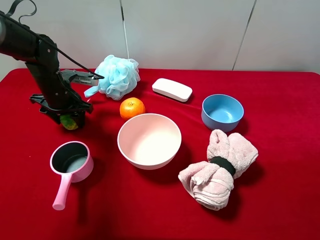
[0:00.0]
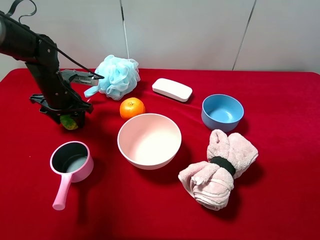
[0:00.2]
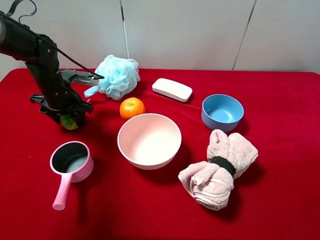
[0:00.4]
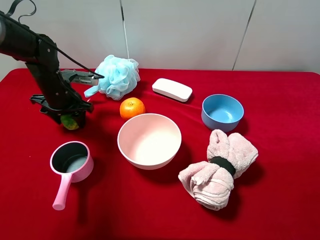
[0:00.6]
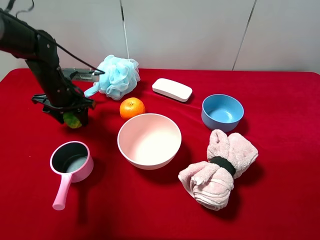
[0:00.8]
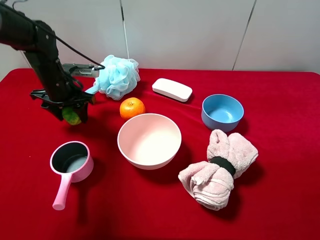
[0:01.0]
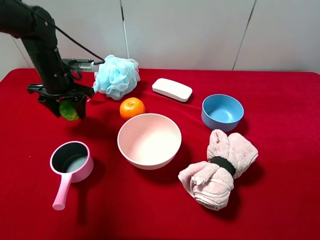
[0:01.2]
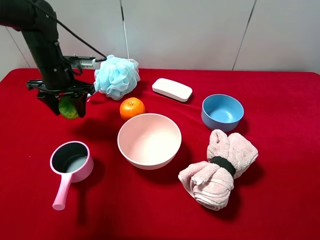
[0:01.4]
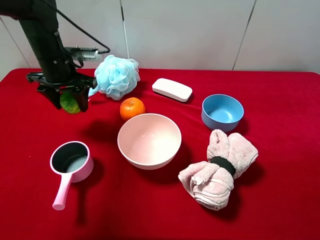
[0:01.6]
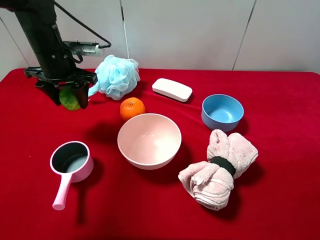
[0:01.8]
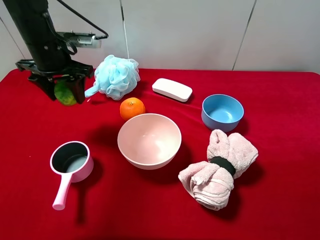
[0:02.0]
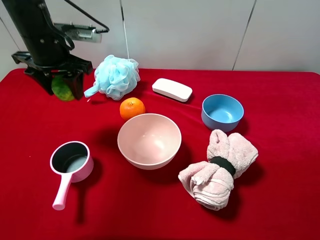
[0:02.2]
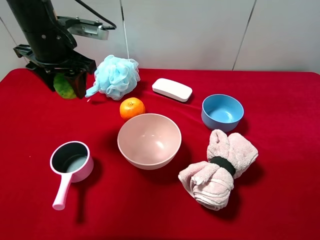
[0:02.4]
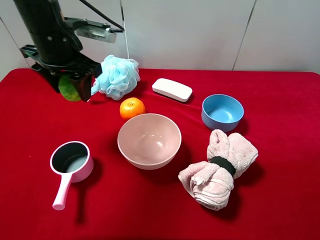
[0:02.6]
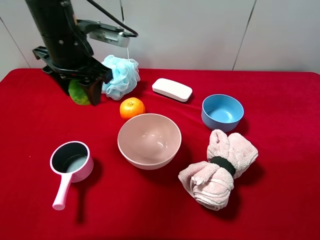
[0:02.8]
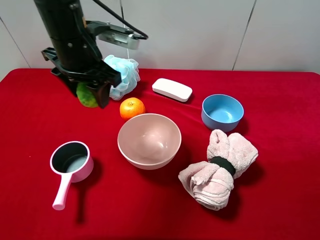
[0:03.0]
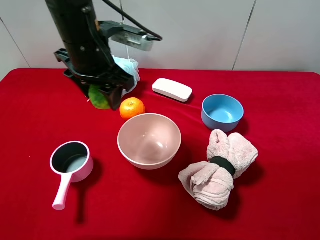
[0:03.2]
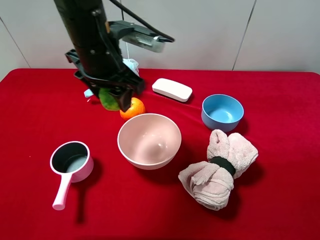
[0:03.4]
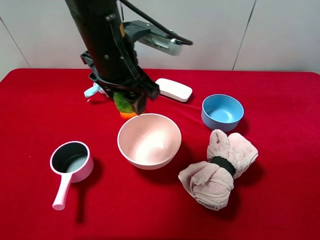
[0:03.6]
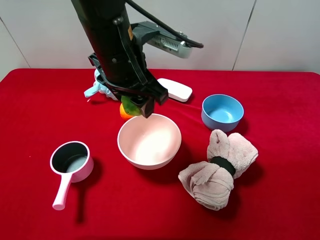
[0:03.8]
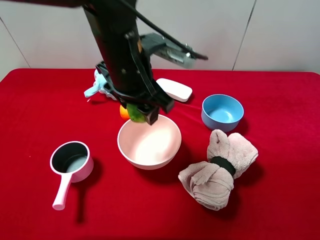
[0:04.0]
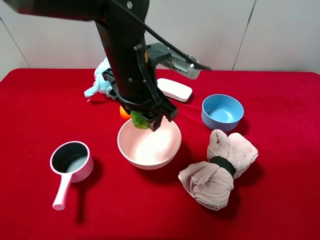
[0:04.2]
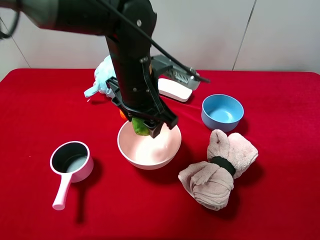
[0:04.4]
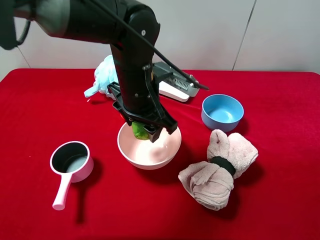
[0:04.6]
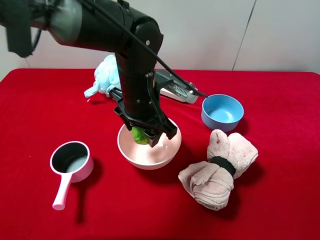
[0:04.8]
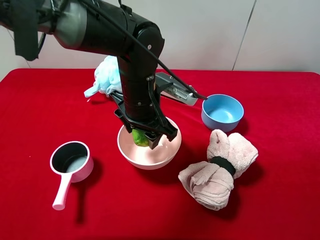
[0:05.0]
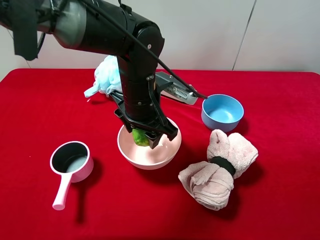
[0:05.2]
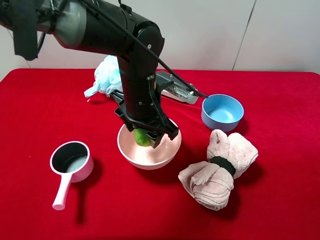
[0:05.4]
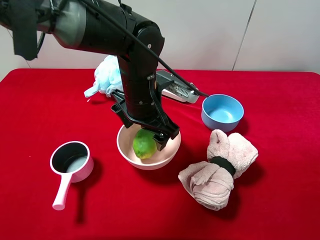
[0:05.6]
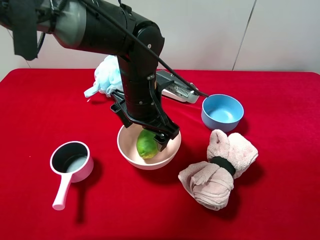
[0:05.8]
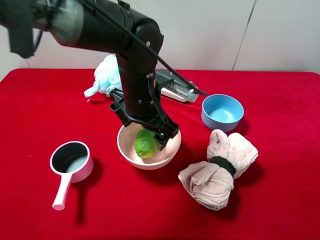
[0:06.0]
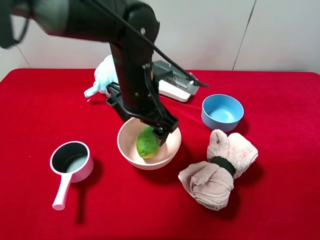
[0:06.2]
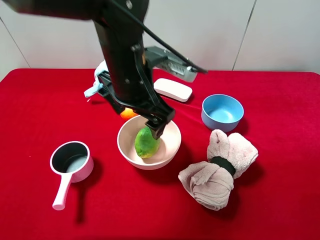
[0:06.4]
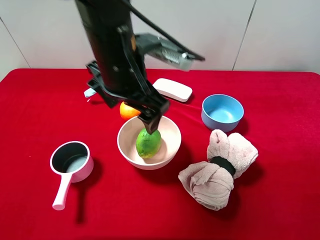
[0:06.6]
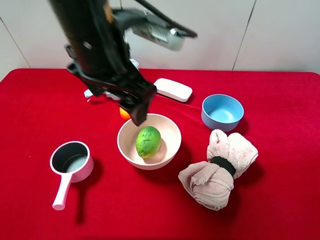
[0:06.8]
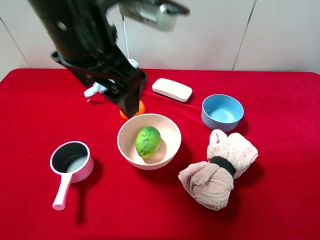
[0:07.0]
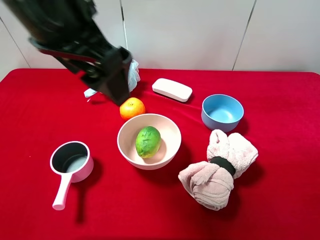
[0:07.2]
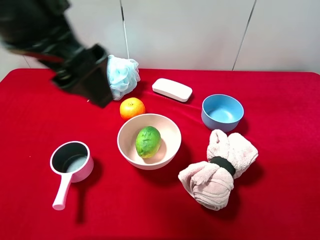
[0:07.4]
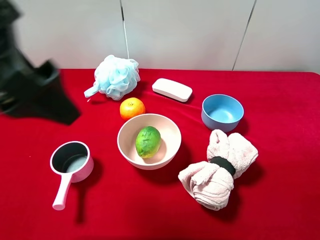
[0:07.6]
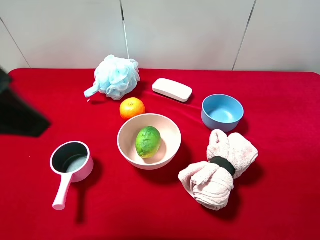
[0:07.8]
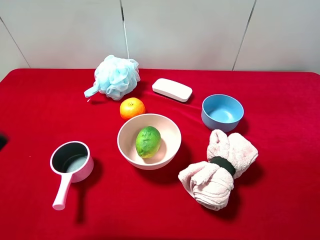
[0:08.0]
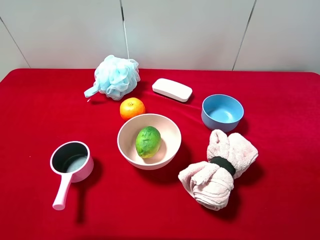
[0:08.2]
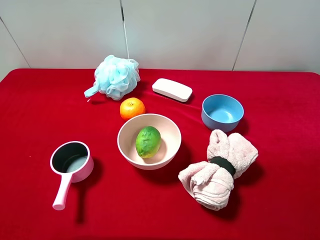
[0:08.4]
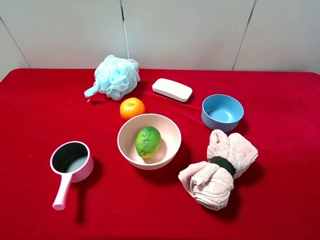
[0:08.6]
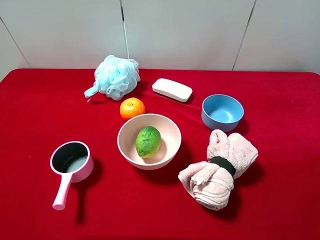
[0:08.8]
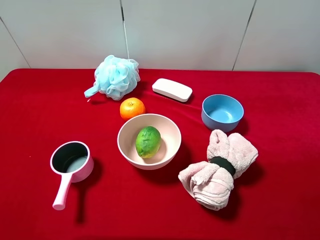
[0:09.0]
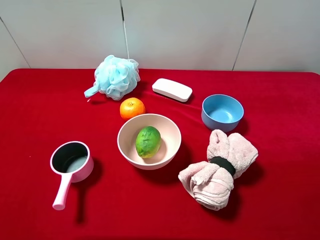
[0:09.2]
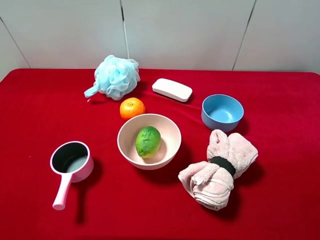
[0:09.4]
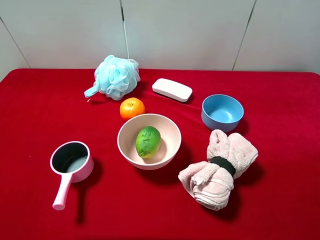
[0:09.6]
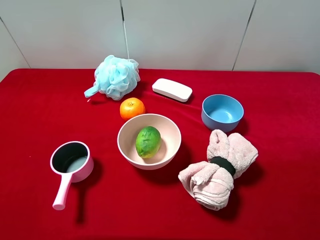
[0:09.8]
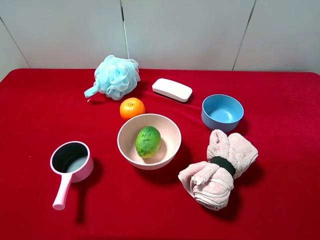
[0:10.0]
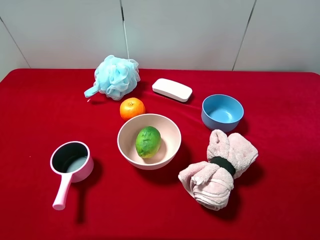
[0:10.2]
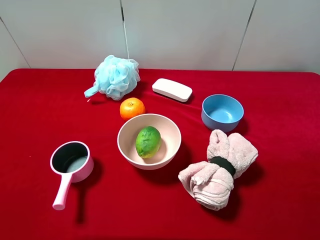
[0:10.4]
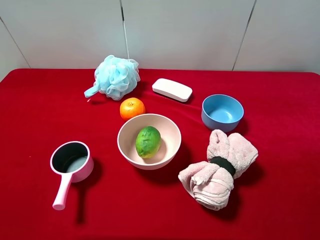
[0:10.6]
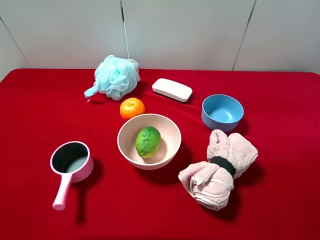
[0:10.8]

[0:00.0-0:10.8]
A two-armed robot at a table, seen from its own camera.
Task of the whole recording: pick up an item with a gripper and place it in a random container on the desktop.
0:00.0 to 0:01.6: The left gripper shifts some 10 cm upward.
0:01.6 to 0:03.0: The left gripper travels to the right, upward and backward by approximately 15 cm.
0:03.0 to 0:04.6: The left gripper goes approximately 10 cm to the right and downward.
0:04.6 to 0:06.2: The left gripper opens its fingers.
0:06.2 to 0:07.8: The left gripper shifts some 30 cm upward, to the left and backward.
0:07.8 to 0:09.2: The left gripper is displaced to the left, backward and downward by roughly 20 cm.

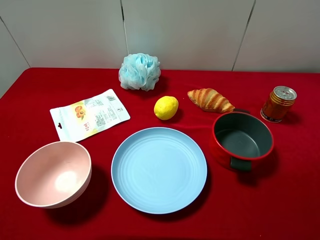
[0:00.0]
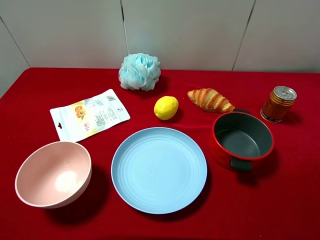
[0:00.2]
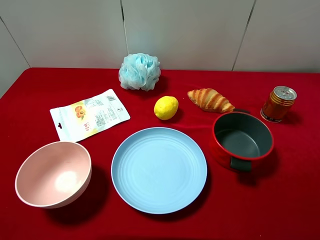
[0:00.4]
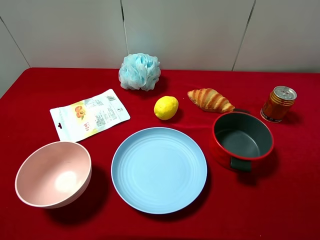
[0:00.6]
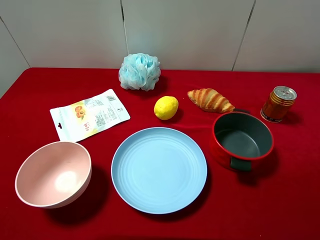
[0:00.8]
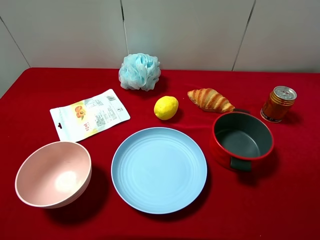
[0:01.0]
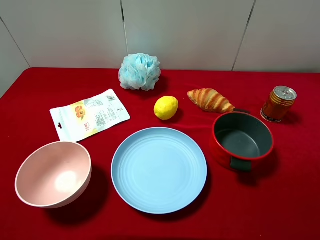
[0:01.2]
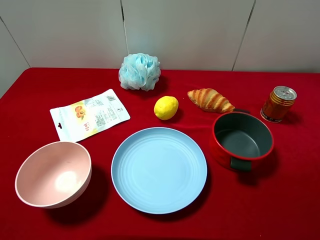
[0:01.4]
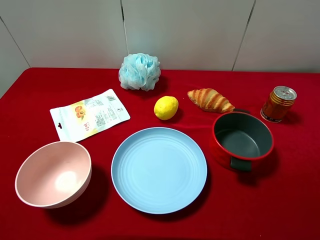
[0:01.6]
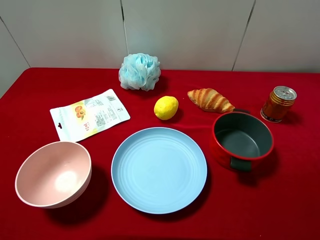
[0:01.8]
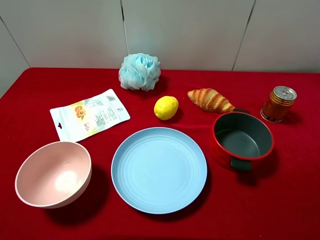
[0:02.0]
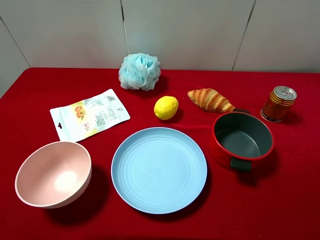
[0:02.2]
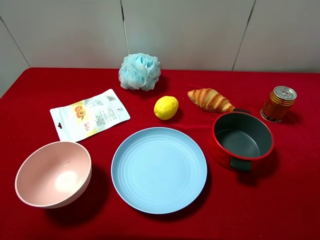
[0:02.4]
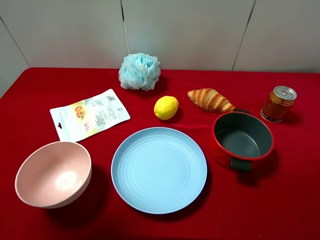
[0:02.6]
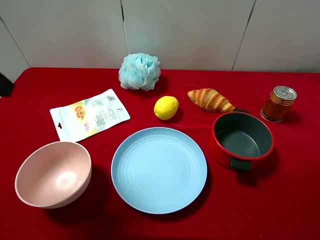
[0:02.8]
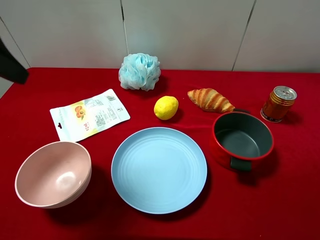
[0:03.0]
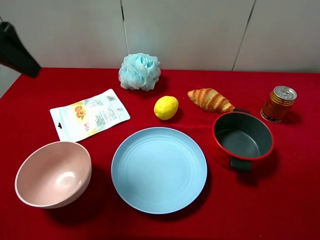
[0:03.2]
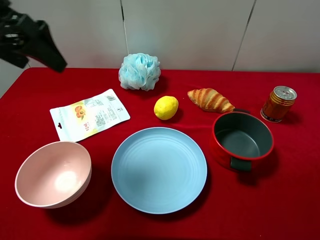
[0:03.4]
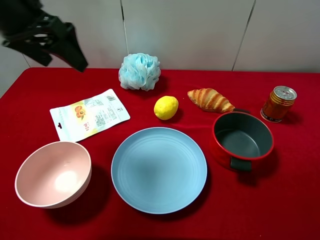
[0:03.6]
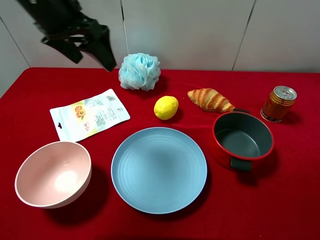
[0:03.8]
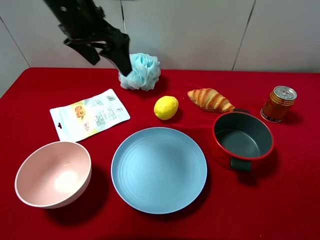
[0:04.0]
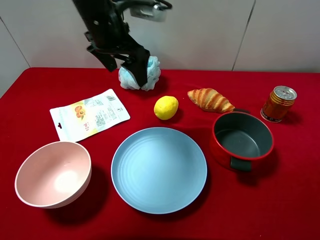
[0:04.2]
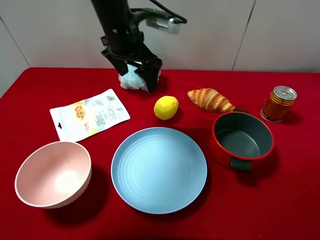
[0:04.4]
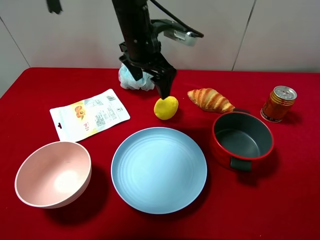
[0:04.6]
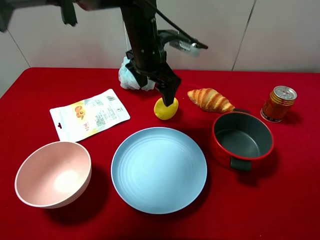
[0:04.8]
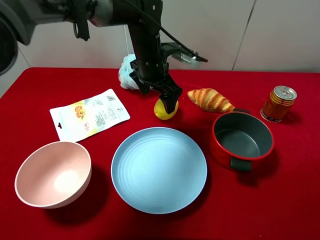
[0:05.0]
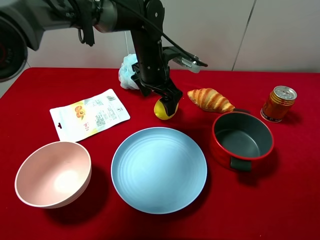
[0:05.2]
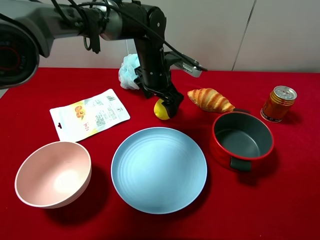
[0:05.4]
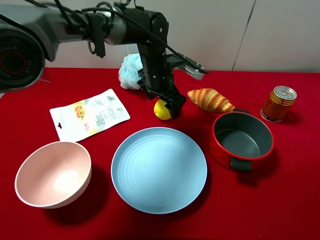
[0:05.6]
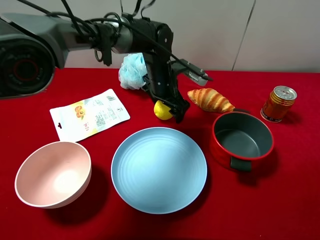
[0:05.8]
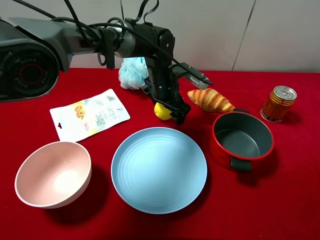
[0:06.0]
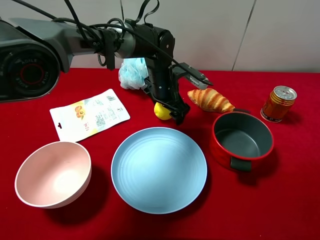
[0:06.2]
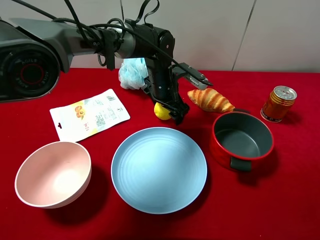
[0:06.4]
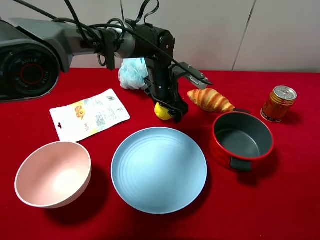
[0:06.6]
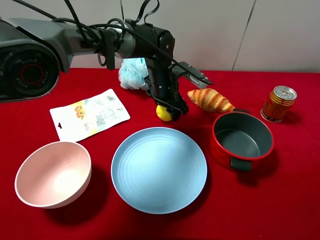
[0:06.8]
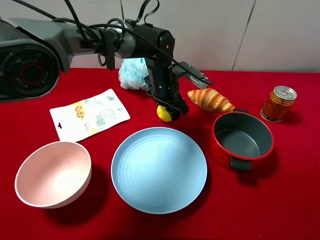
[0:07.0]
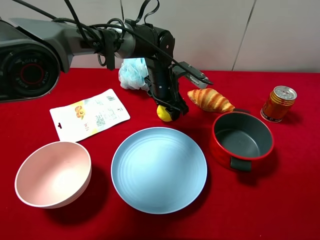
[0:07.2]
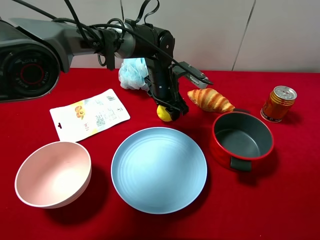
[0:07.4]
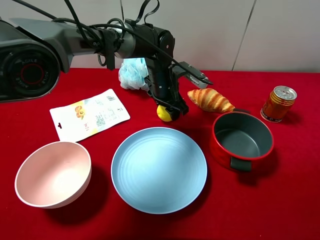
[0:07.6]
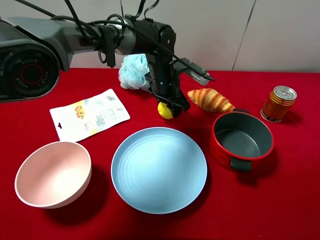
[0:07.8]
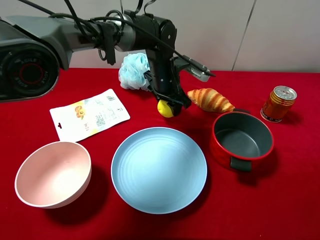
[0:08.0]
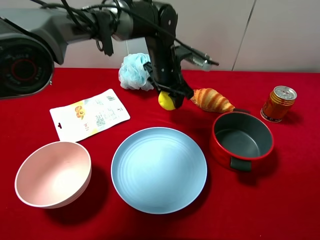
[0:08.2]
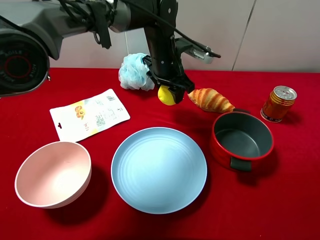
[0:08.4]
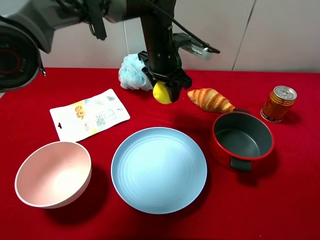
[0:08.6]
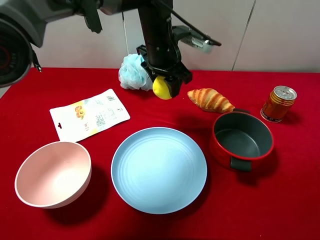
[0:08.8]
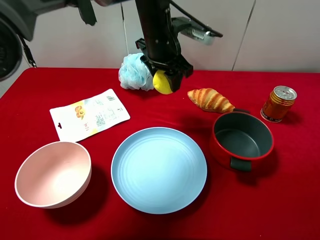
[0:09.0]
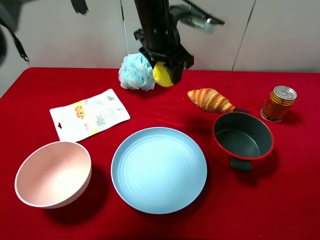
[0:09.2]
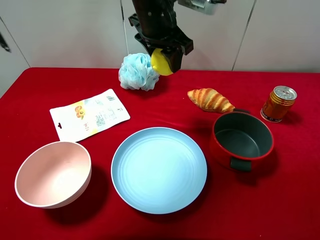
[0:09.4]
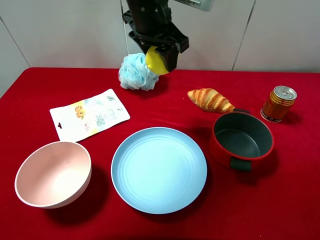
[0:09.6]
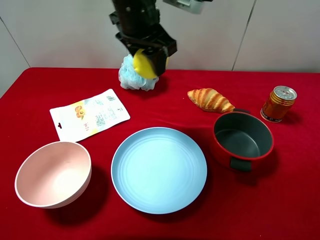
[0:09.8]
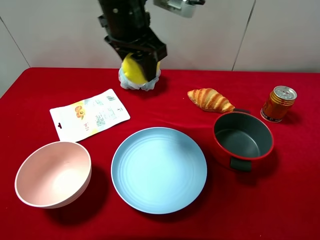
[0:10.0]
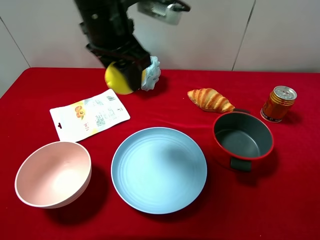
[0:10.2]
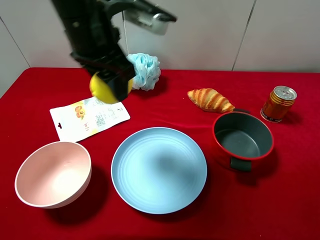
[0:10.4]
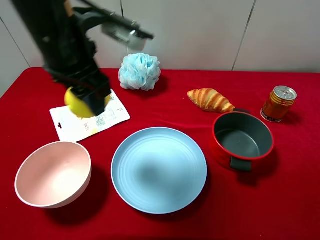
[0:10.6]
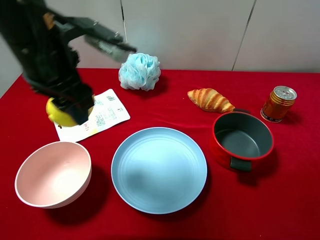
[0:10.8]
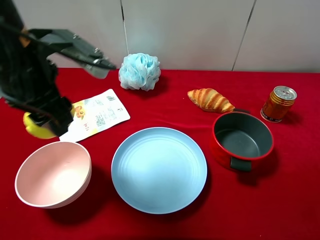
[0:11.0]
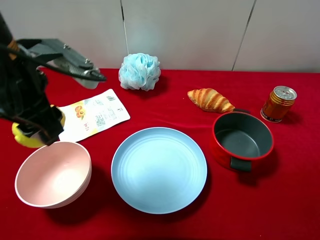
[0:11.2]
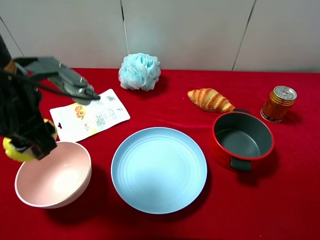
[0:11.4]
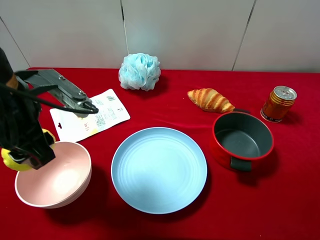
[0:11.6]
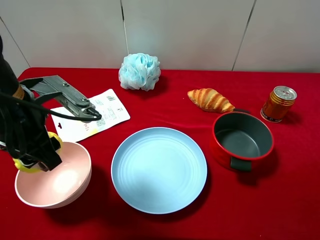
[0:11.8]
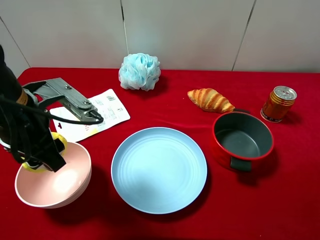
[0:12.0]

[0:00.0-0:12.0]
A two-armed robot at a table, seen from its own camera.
Task of the whole recording: pick up an item with a gripper and place it in a random container on the desktop.
0:01.6 to 0:03.0: The left gripper travels forward by approximately 20 cm.
0:03.0 to 0:04.4: The left gripper moves to the right and forward, some 25 cm.
0:04.4 to 0:06.0: The left gripper shifts some 15 cm downward and to the right.
0:06.0 to 0:07.6: The left gripper closes its fingers.
0:07.6 to 0:09.0: The left gripper shifts approximately 10 cm upward.
0:09.0 to 0:10.4: The left gripper goes some 15 cm backward, to the left and upward.
0:10.4 to 0:12.0: The left gripper travels backward, to the left and downward by roughly 15 cm.
